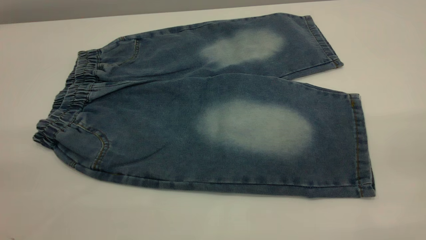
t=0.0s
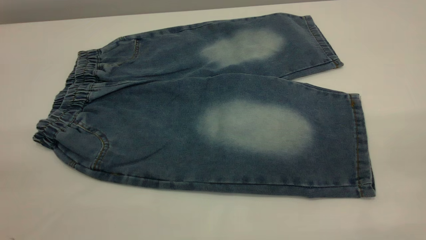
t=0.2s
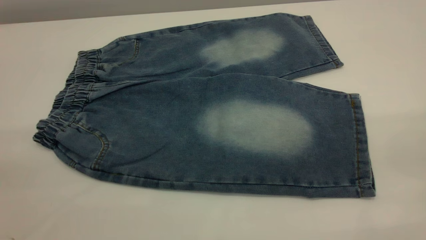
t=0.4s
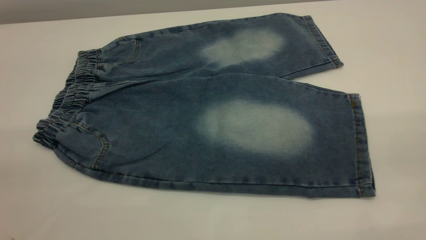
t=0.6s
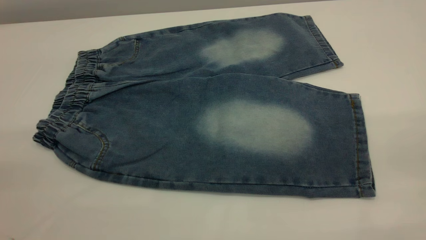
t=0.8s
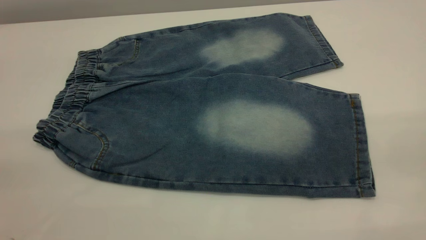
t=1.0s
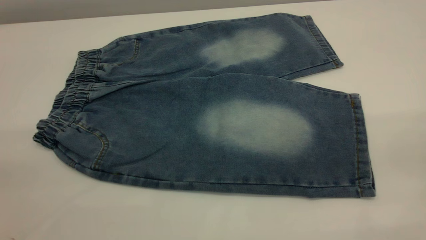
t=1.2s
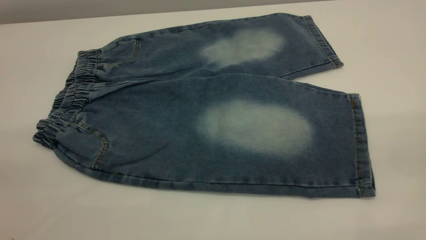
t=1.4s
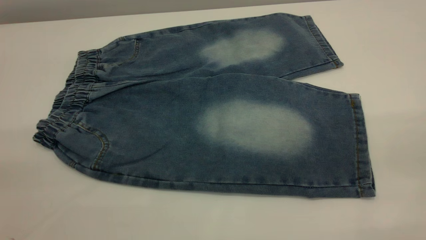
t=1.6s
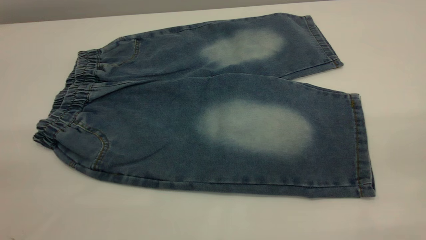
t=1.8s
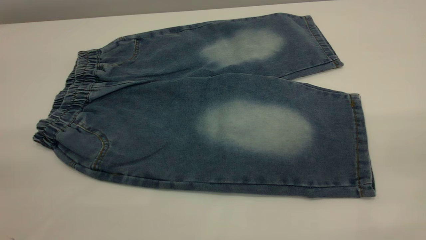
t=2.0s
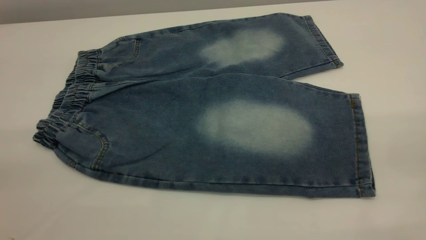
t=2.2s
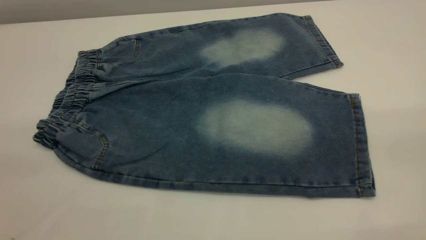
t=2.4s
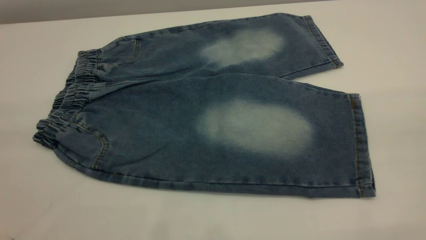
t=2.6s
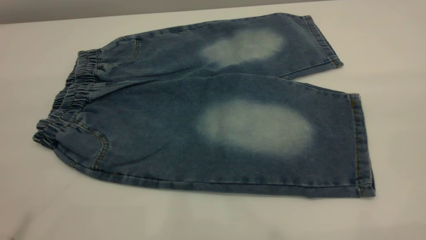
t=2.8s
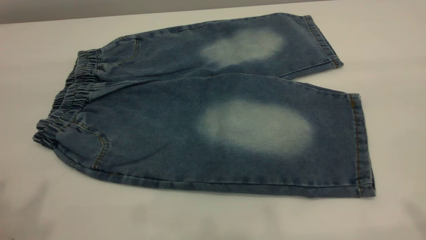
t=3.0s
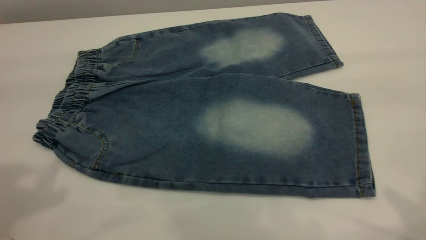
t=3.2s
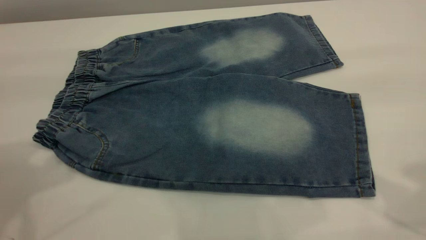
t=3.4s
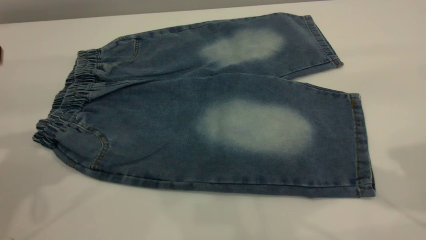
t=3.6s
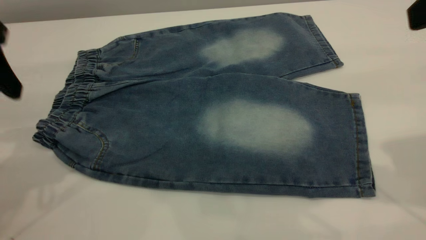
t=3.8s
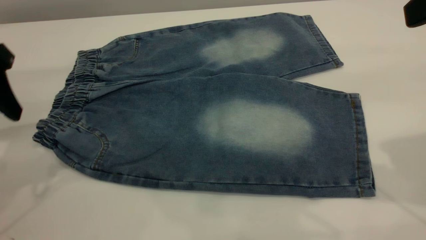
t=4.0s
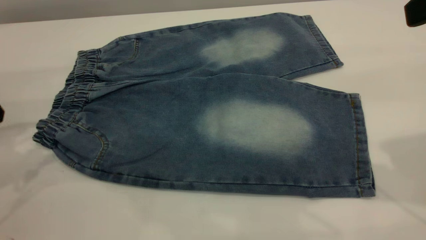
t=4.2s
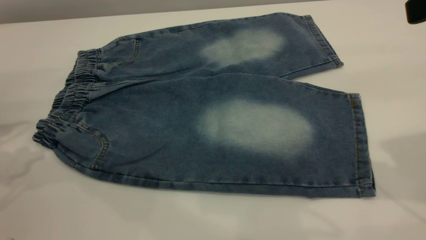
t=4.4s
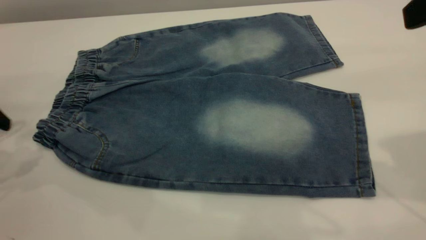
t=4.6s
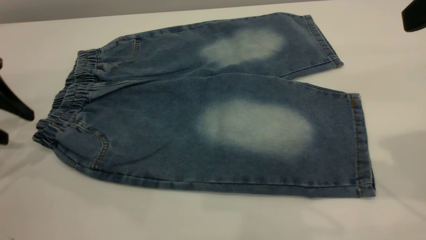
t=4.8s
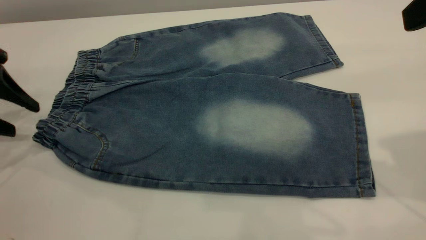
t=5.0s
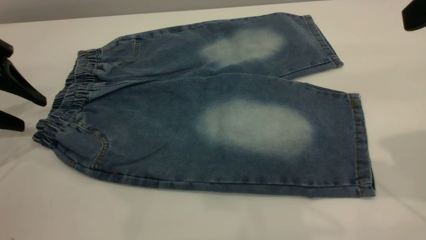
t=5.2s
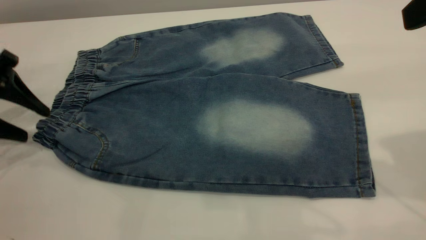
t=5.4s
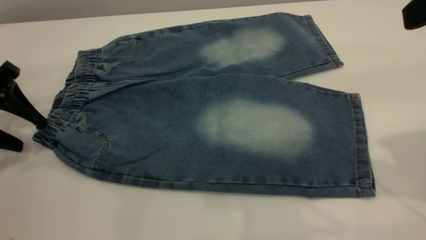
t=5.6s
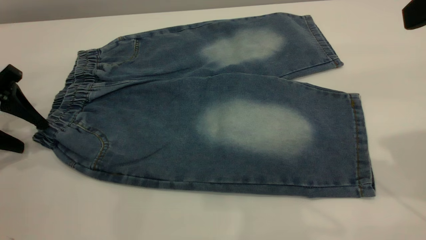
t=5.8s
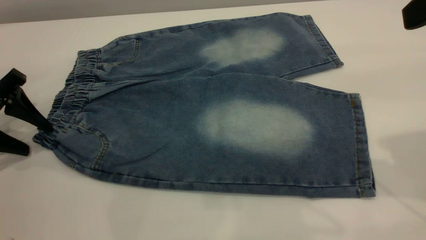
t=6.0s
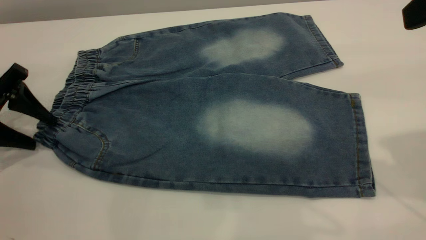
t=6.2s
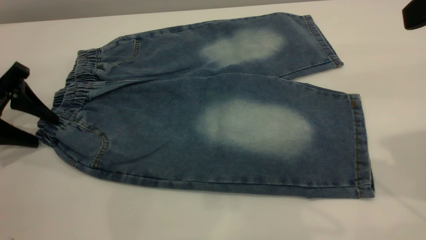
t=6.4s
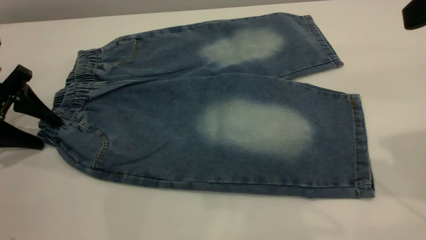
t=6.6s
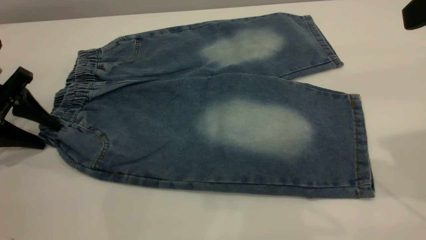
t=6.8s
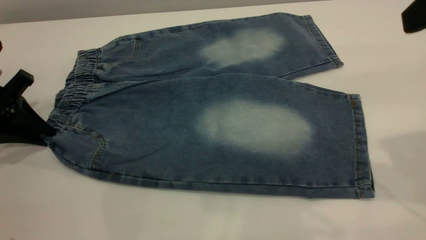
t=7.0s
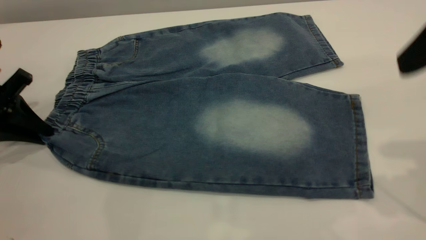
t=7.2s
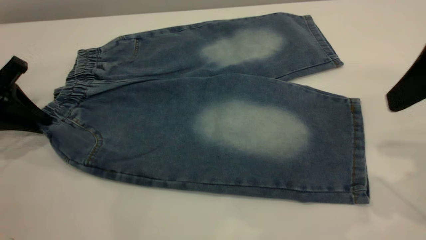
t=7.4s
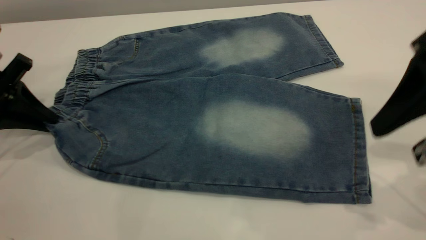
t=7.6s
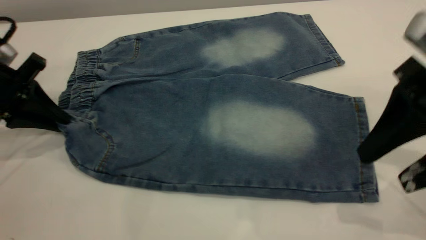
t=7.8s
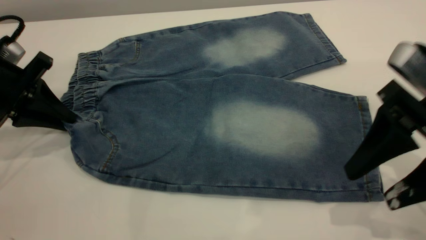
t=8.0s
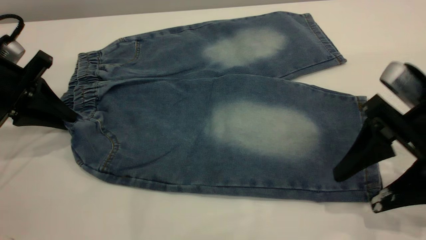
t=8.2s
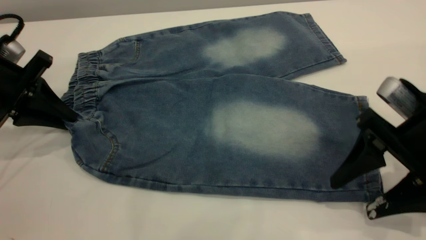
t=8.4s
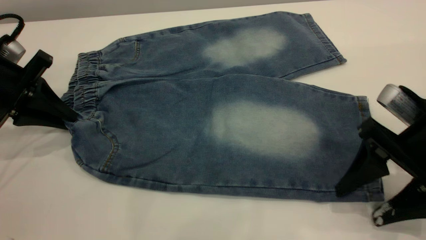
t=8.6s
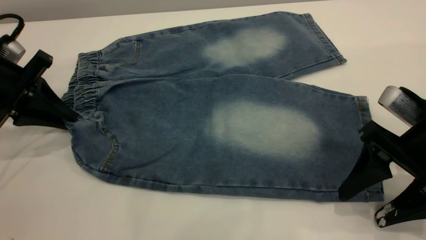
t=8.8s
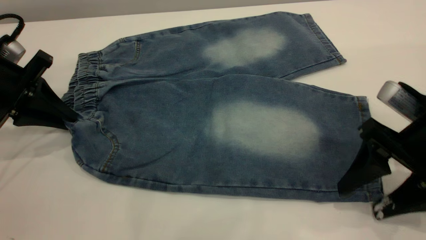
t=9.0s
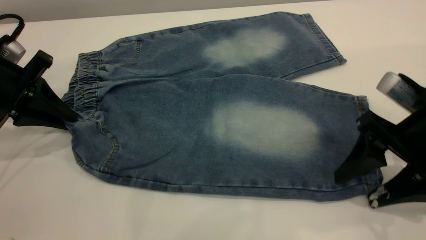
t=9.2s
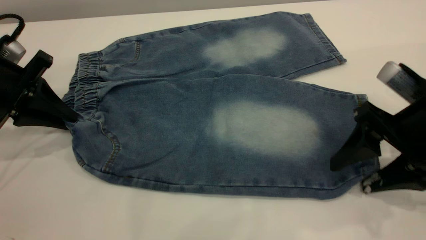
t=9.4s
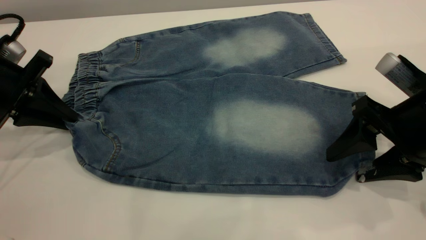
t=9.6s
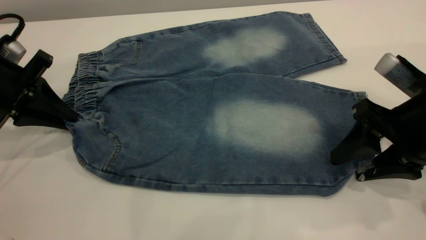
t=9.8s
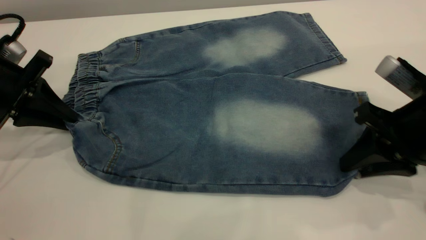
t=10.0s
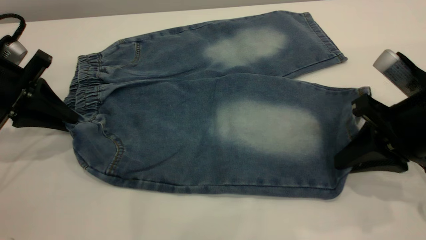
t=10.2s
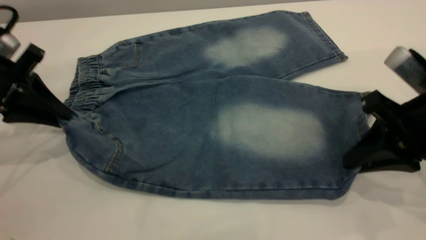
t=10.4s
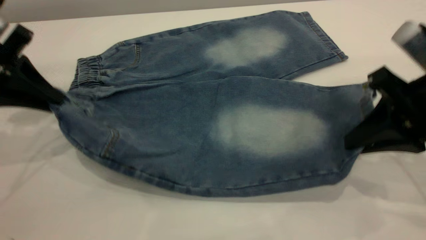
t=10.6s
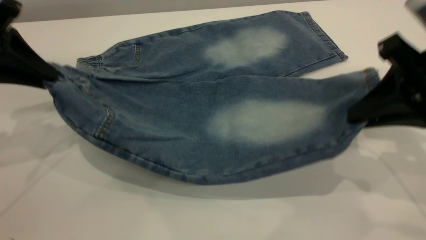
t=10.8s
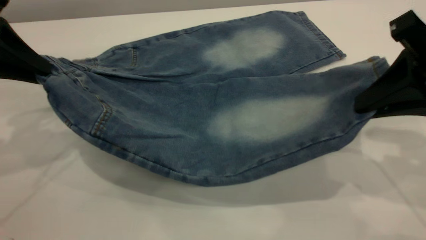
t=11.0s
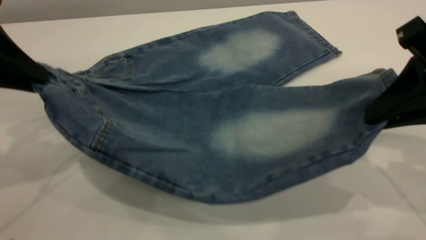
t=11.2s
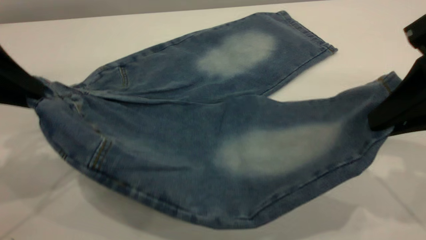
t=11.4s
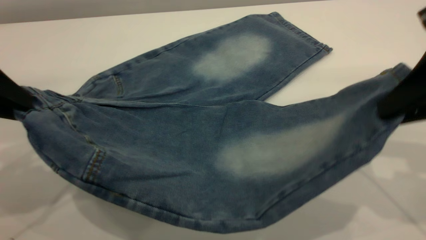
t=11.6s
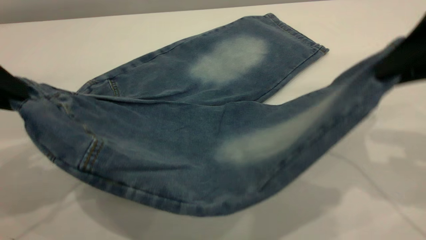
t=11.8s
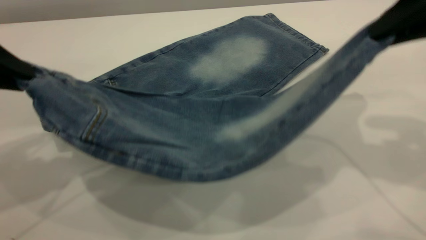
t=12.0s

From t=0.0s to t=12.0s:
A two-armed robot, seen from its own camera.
From t=0.0s to t=1.6s: Neither gripper changes place.
From t=4.4s to t=6.0s: The left gripper moves downward, about 10 cm.
From t=6.0s to t=7.6s: The right gripper is displaced downward by roughly 10 cm, while the left gripper closes.
From t=7.6s to t=9.0s: The right gripper travels downward by about 10 cm.
From t=9.0s to t=10.4s: The right gripper closes its fingers.
From t=10.4s to t=12.0s: The left gripper goes some 10 cm upward and backward. The right gripper is displaced upward by roughly 15 cm.

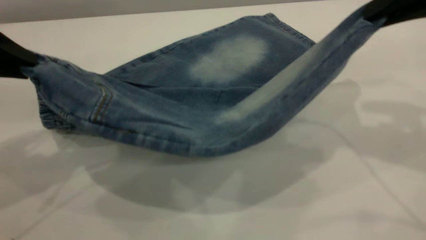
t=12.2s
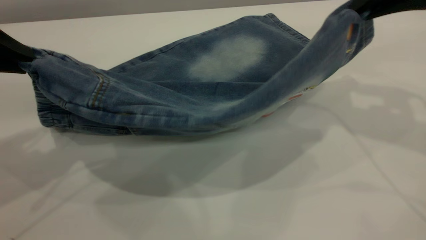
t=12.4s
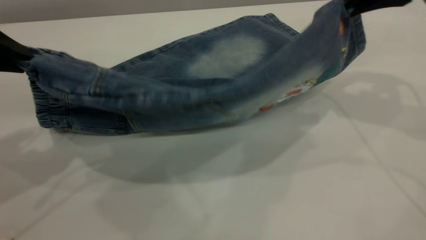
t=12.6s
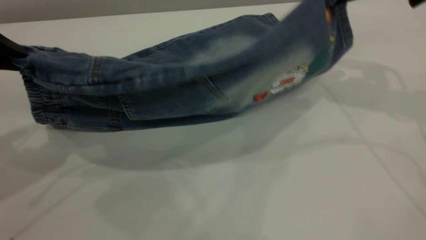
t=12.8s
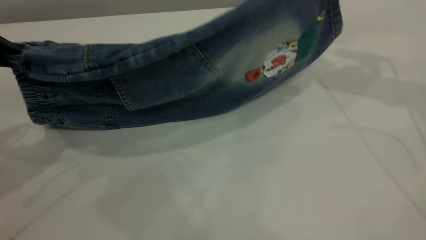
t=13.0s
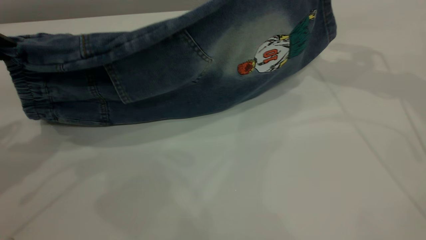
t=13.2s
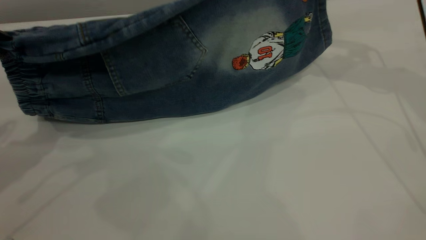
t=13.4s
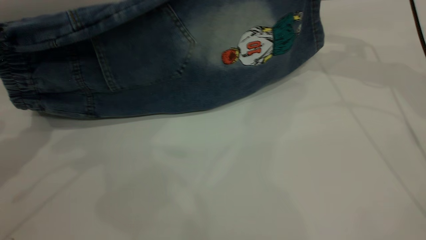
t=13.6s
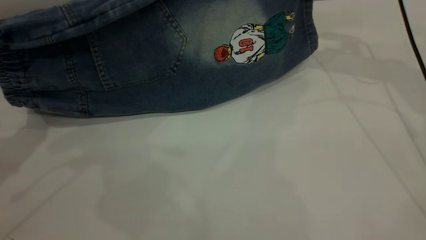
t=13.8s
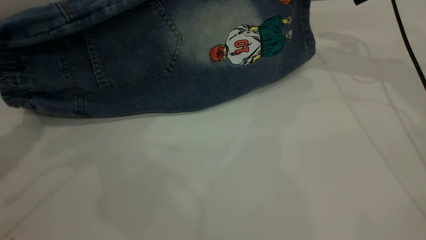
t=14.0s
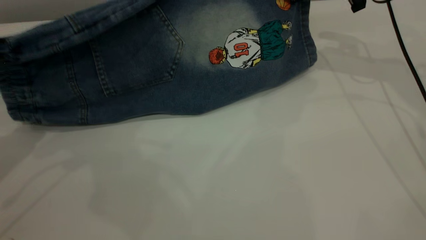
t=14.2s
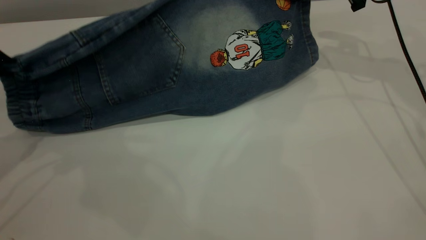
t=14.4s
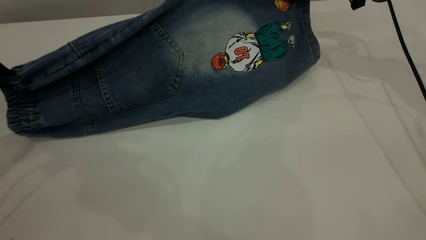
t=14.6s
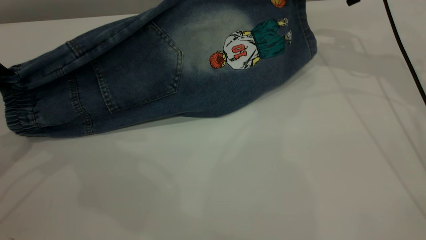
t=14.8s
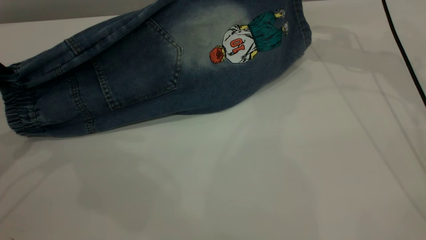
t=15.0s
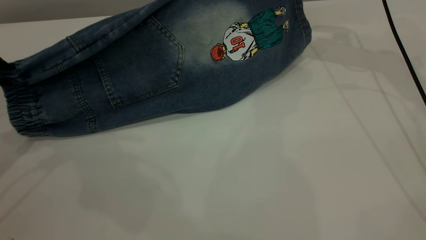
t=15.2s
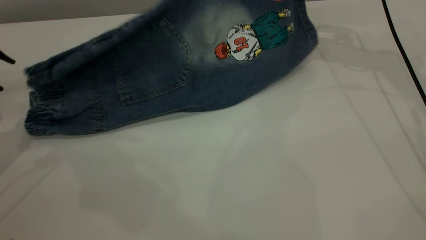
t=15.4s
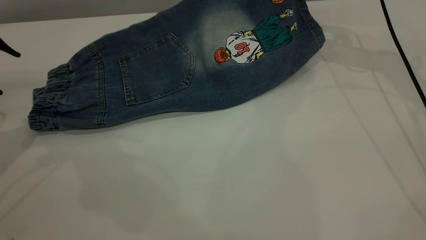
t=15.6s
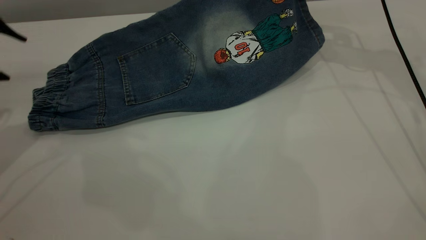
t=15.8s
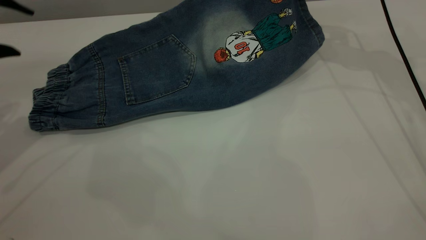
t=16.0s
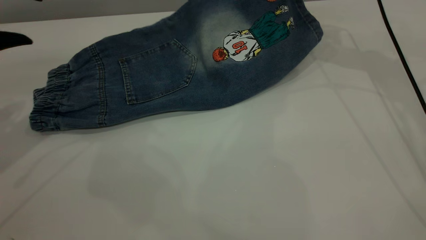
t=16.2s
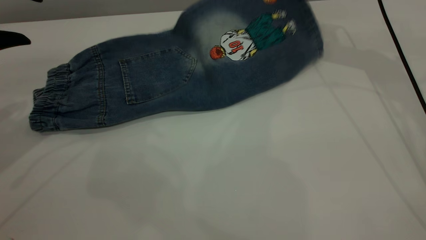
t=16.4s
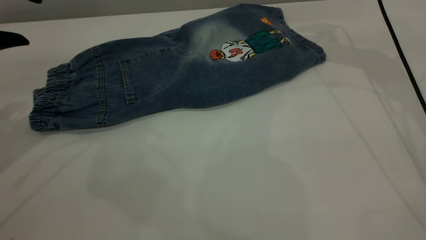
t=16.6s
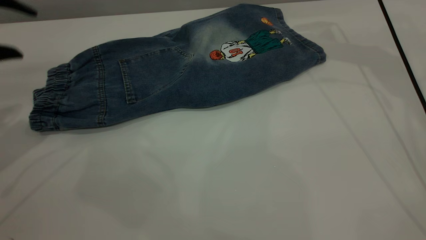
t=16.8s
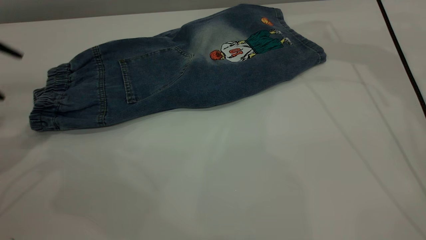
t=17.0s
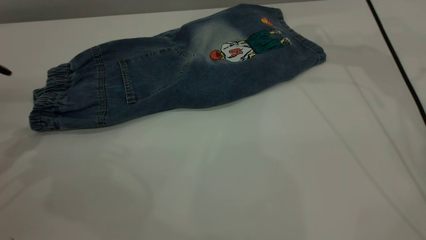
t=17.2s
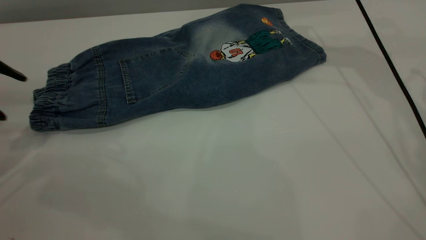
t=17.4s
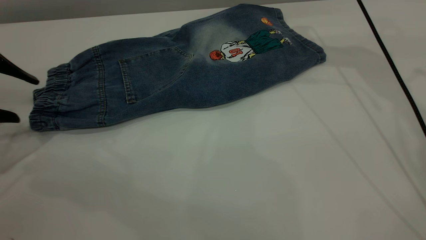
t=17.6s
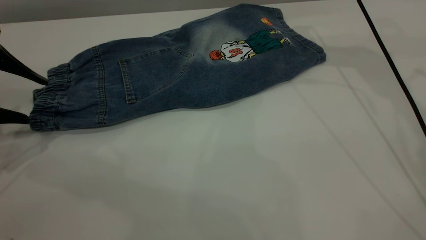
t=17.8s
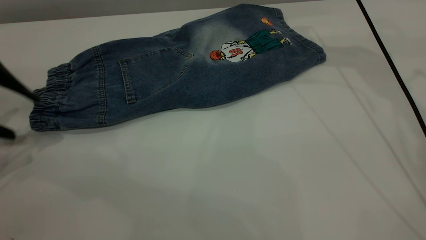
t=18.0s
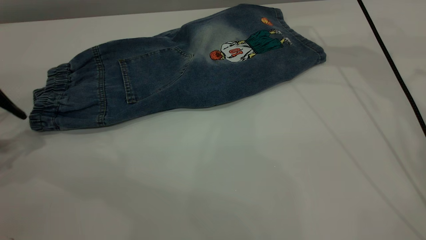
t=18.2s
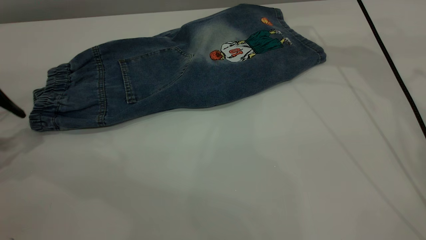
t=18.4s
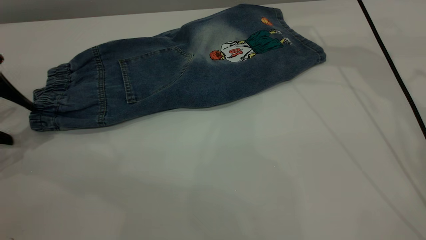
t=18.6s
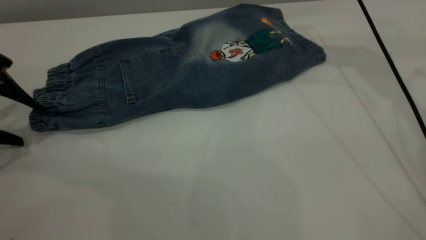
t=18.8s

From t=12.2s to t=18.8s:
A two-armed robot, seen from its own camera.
Step, from t=12.2s to t=16.6s: Fold the bottom of the pants upward.
From t=12.2s to t=13.8s: The right gripper travels forward by some 20 cm.
From t=13.8s to t=15.4s: The left gripper is displaced downward by some 5 cm, and opens its fingers.
From t=15.4s to t=17.2s: The right gripper moves upward, approximately 5 cm, and opens.
From t=17.2s to t=18.8s: The left gripper is displaced downward by about 5 cm.
